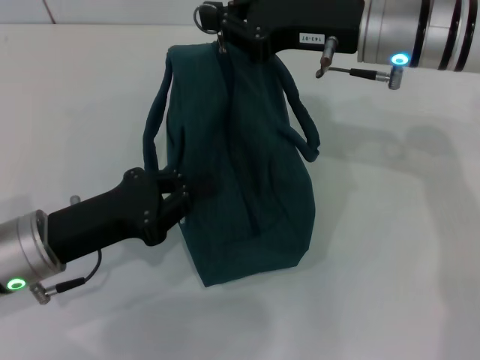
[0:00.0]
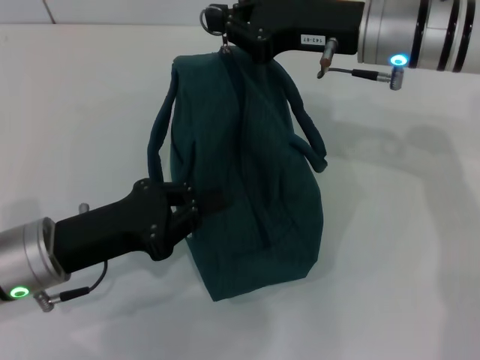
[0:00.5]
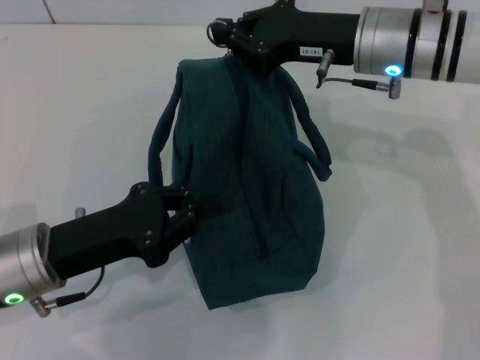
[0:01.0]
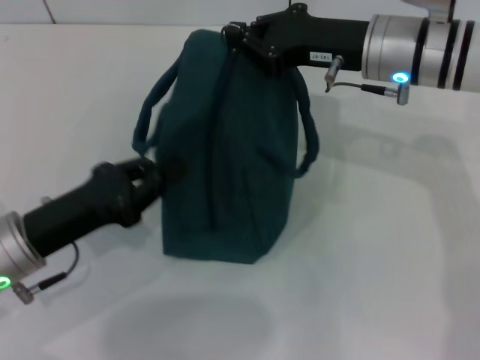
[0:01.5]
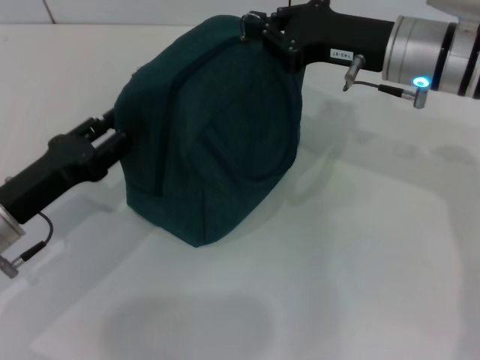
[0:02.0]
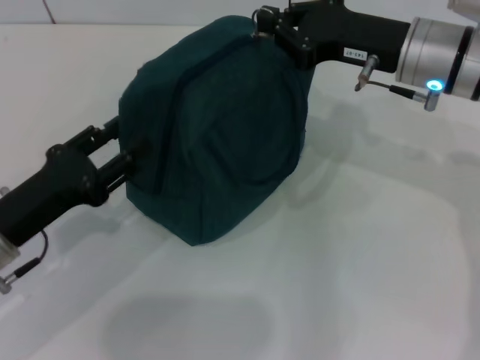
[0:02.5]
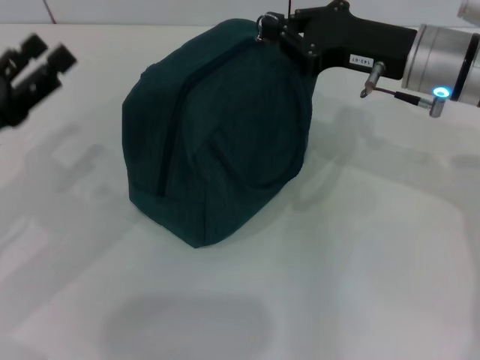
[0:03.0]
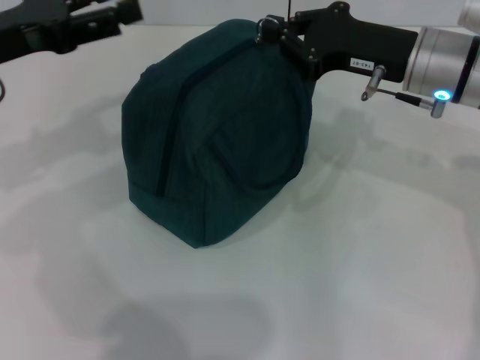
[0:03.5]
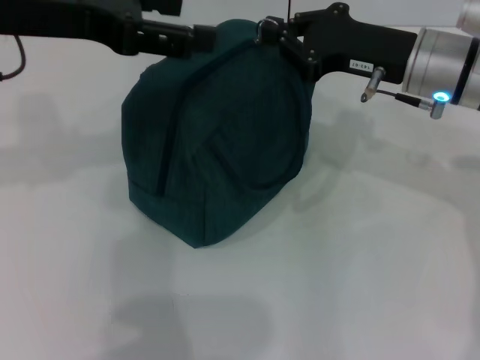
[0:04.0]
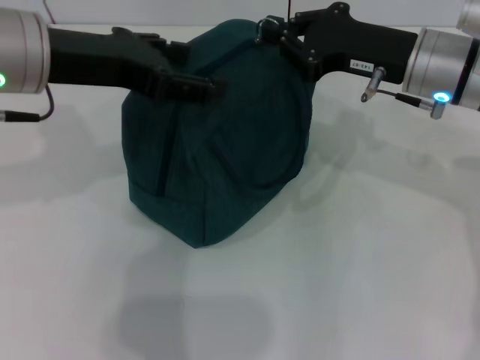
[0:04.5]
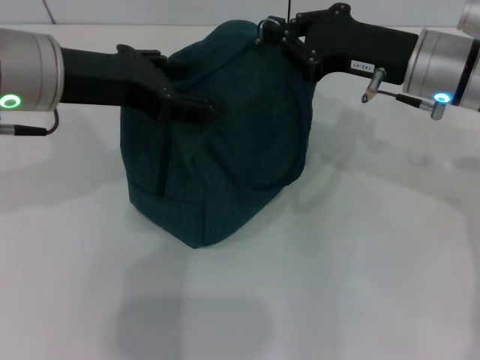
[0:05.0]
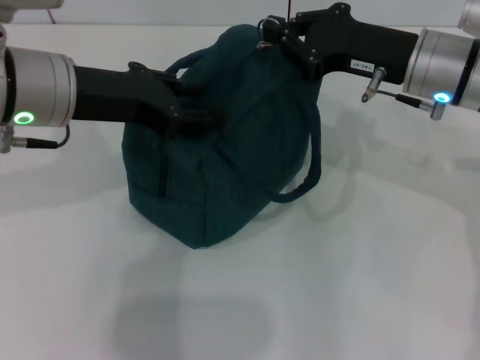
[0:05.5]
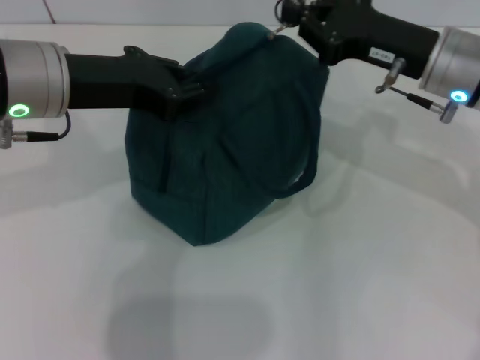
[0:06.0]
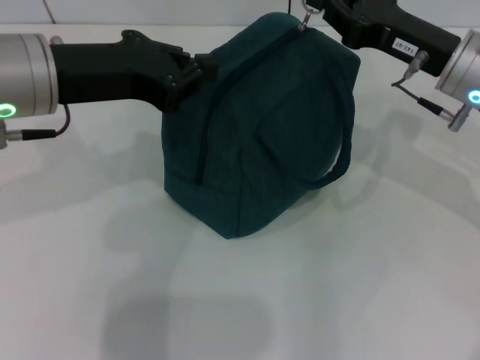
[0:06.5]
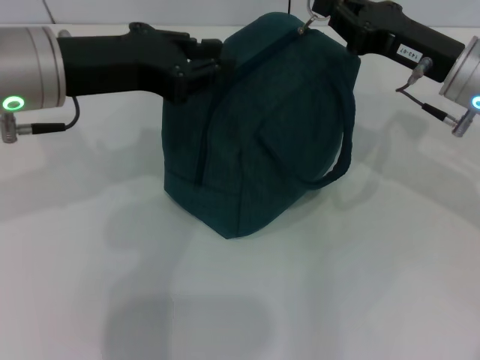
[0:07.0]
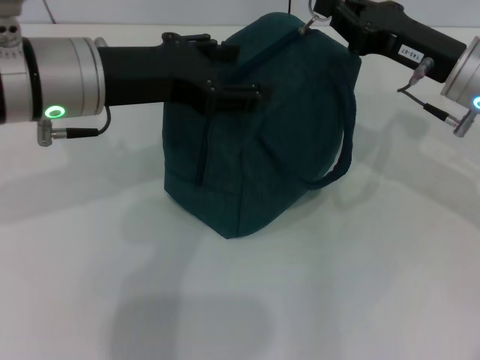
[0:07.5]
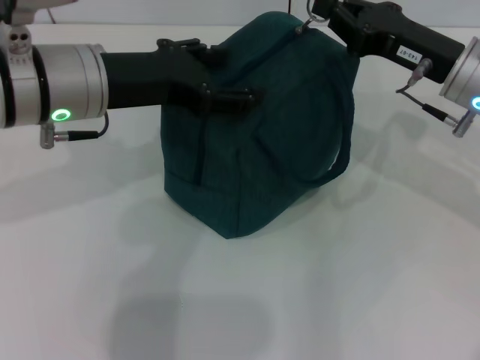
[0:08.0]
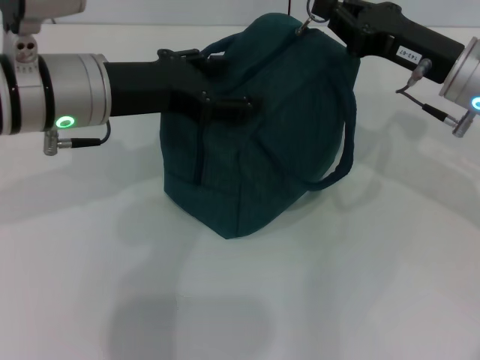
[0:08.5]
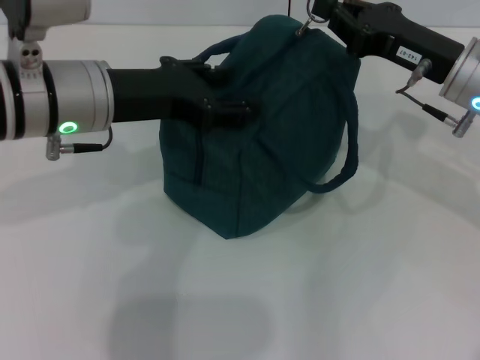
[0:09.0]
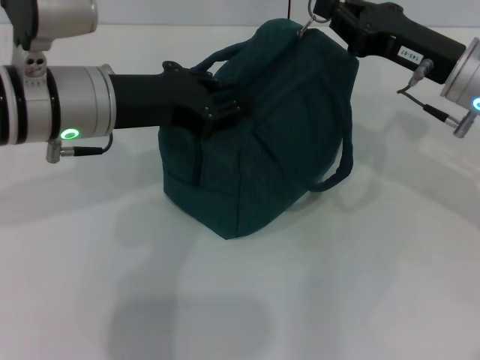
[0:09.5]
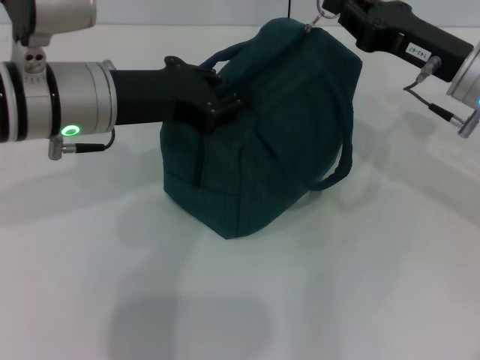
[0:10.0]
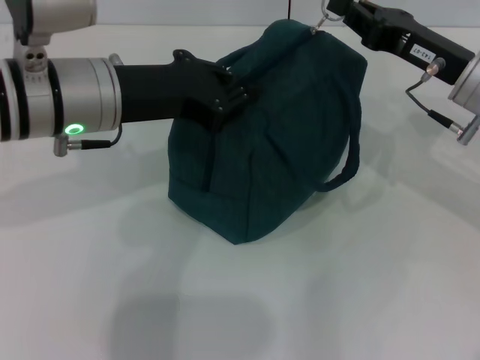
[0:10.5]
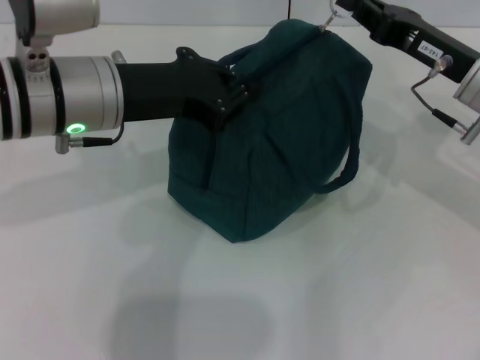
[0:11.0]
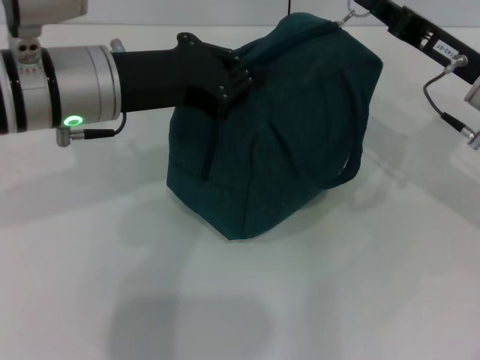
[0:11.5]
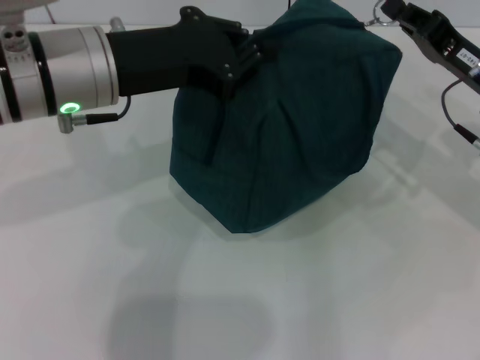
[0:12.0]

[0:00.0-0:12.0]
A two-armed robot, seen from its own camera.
0:02.0 to 0:04.0: The left gripper moves upward, some 20 cm, and opens its fingers.
0:04.0 to 0:06.0: The left gripper moves downward, approximately 5 cm, and closes.
0:06.0 to 0:08.0: The left gripper opens its fingers.
0:08.0 to 0:10.0: The left gripper closes.

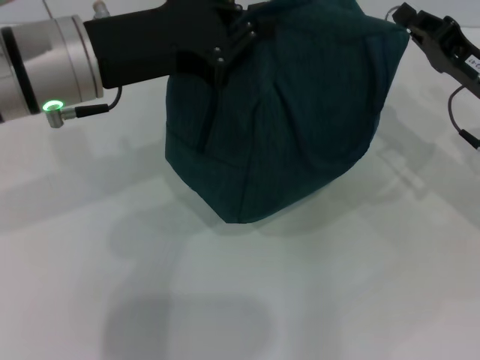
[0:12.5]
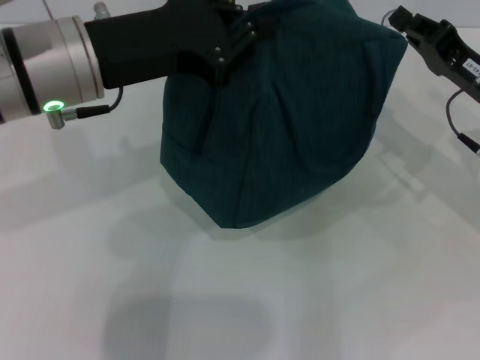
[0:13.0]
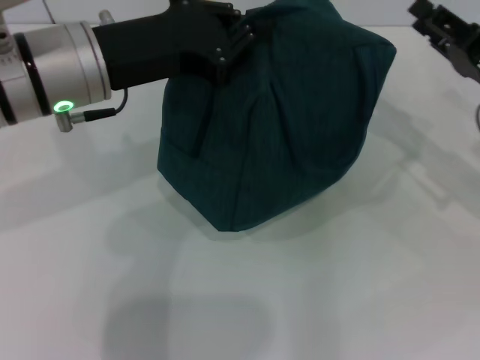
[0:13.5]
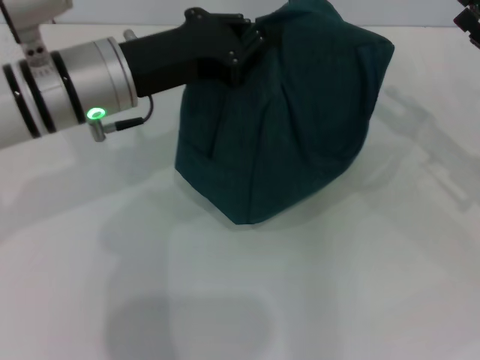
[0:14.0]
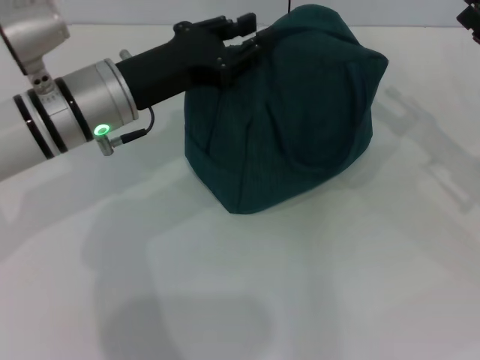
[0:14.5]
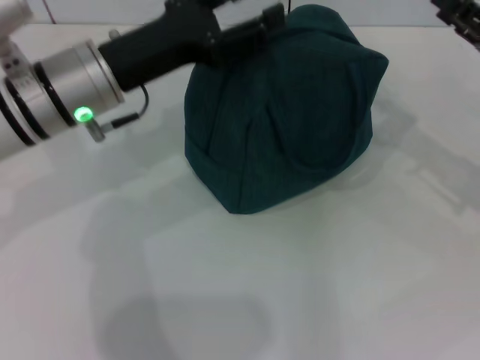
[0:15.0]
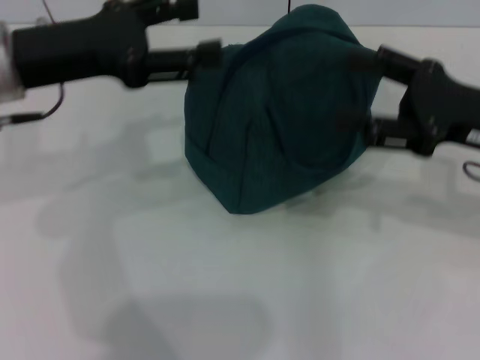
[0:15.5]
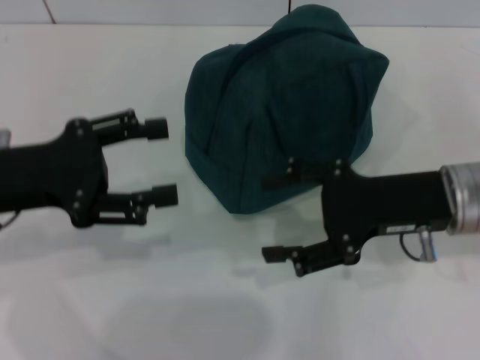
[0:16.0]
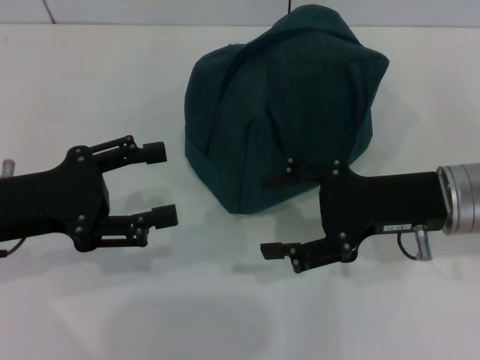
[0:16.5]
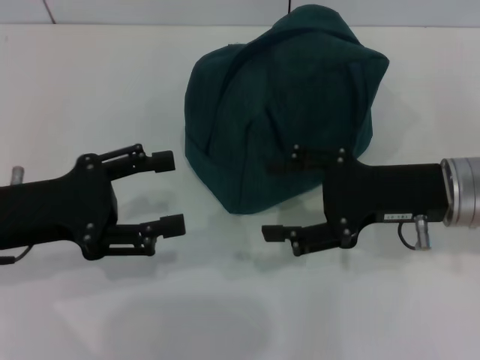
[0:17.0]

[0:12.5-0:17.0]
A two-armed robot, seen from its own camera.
Step, 0:13.5 to 0:14.5: Hold the lunch bag with your left hand.
0:12.5 to 0:14.5: The left gripper heads downward, covering some 10 cm; the right gripper moves to the right, roughly 5 cm, and opens its fingers.
0:14.5 to 0:17.0: The right gripper travels to the left by approximately 10 cm; the left gripper shifts some 15 cm backward and to the left, and opens up.
